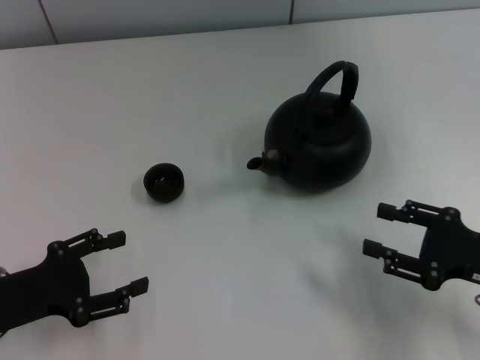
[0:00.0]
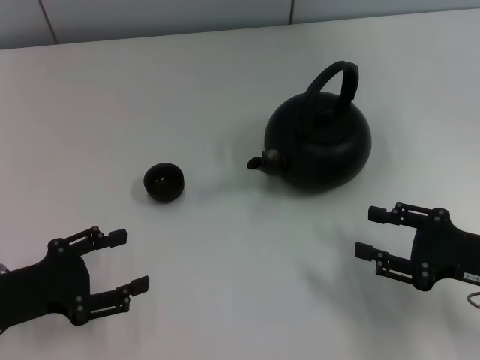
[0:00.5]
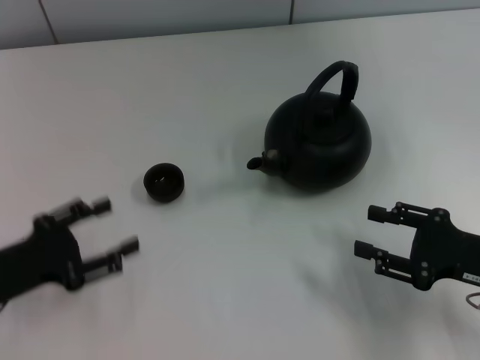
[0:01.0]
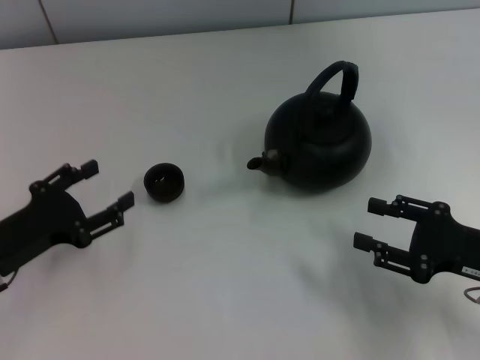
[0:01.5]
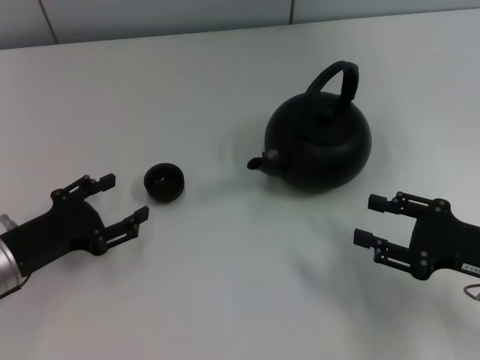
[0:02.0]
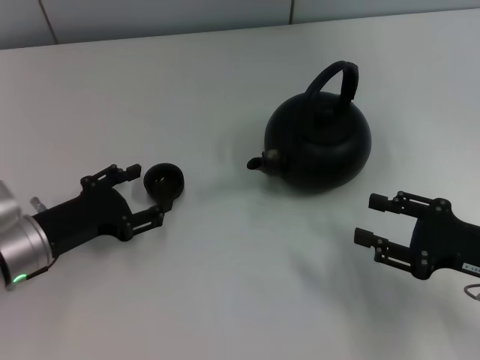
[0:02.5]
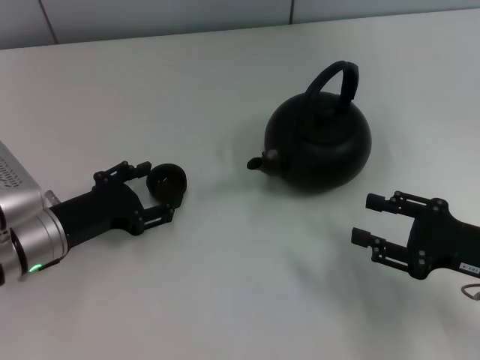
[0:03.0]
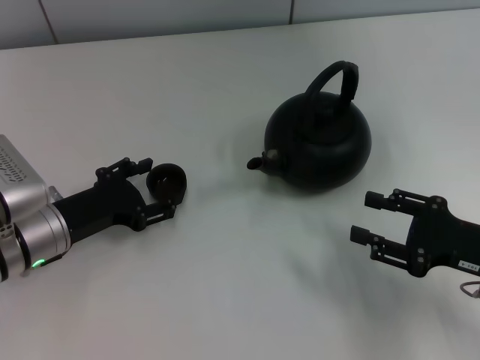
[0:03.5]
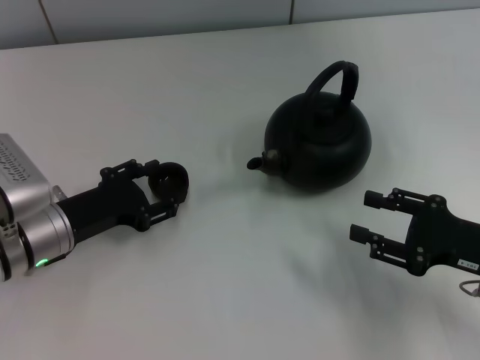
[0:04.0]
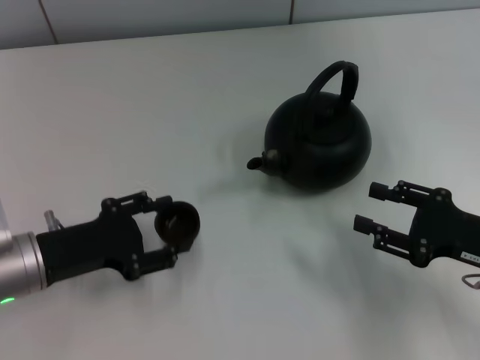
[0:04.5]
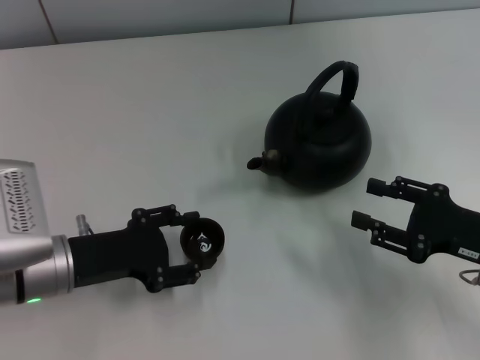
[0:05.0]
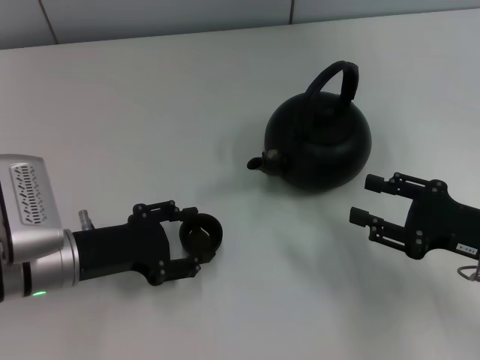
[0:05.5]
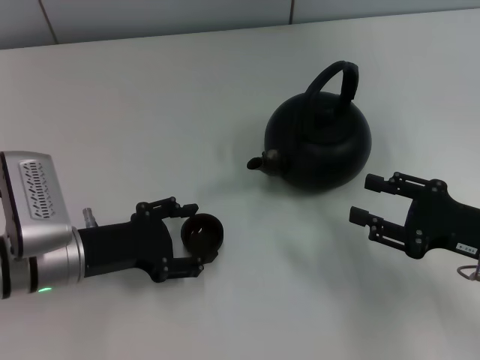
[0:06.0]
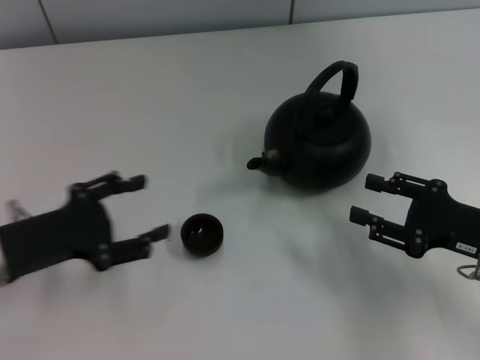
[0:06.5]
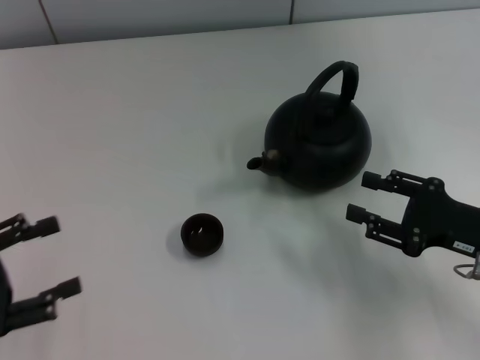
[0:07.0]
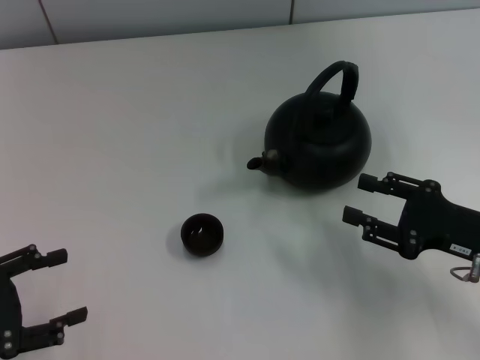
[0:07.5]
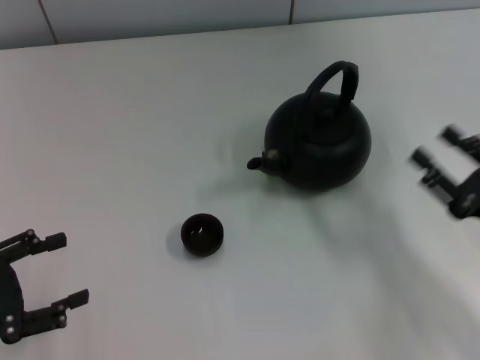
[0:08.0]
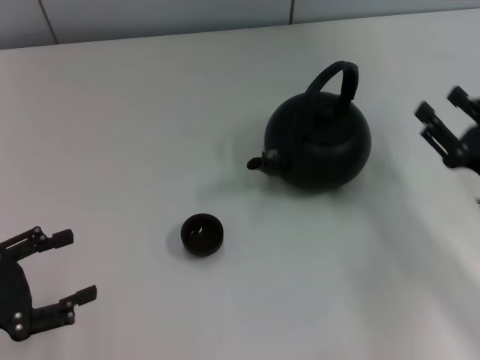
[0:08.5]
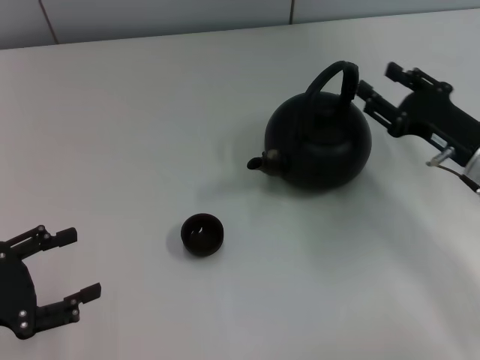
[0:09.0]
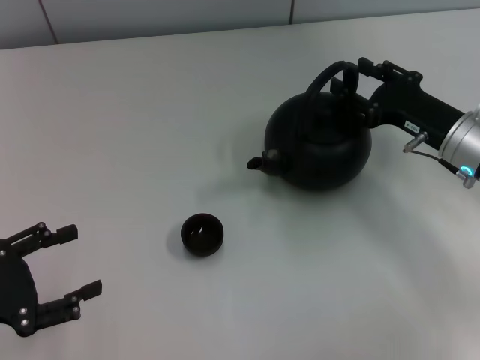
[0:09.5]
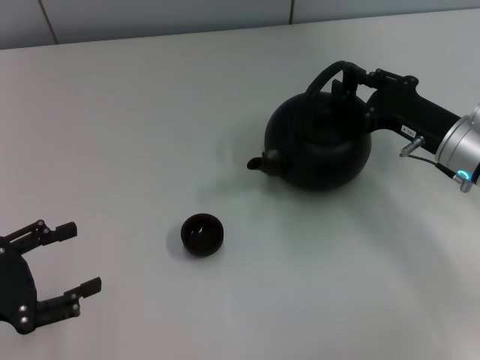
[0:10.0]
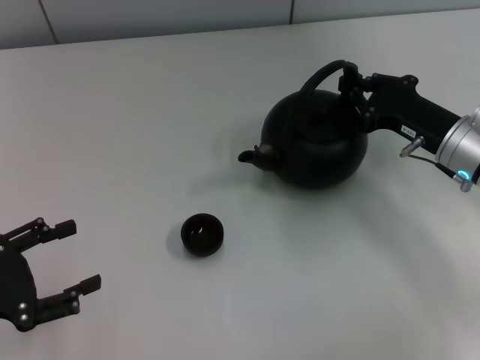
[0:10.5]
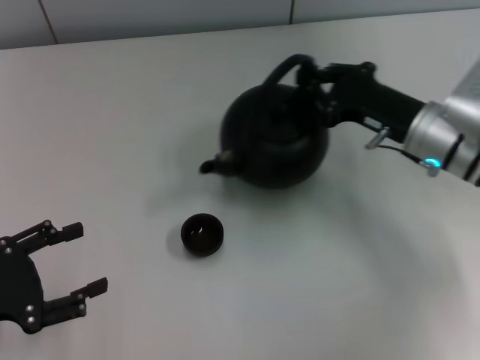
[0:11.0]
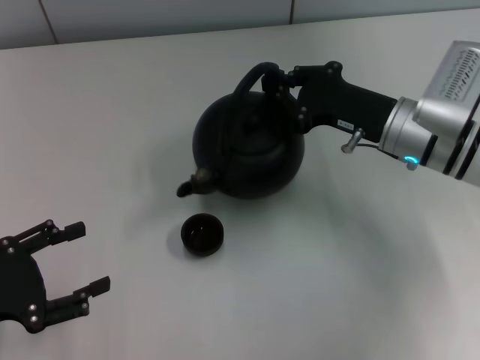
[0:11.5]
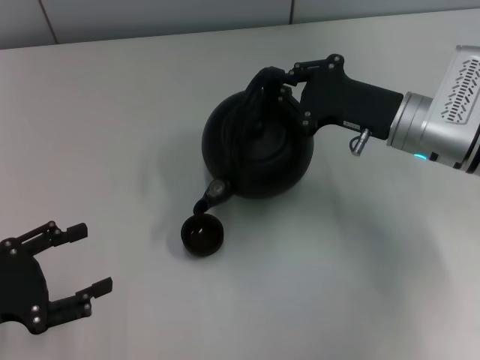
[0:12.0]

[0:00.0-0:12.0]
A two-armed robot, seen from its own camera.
Task of the whole recording: Grasp the handle of the teapot with one hand and pour tea into the teacup.
Step, 0:00.0 to 0:04.0: Pick up the teacup with the left gripper.
Step, 0:04.5 to 0:06.0: Place the teacup in the center of view with the left gripper.
Step, 0:06.5 to 0:10.5: Pick up the teapot with the right gripper.
0:00.0 to 0:02.0: There are only small adjustments of the grippers.
0:02.0 to 0:04.0: The left gripper moves about 5 cm.
0:06.0 to 0:08.0: The left gripper heads to the left and backward, covering approximately 15 cm.
0:08.0 to 0:10.0: The right gripper goes approximately 15 cm forward.
0:10.0 to 0:12.0: The right gripper heads to the left, covering approximately 5 cm, and closes its fingers.

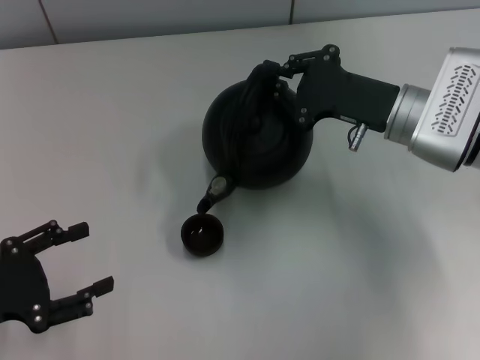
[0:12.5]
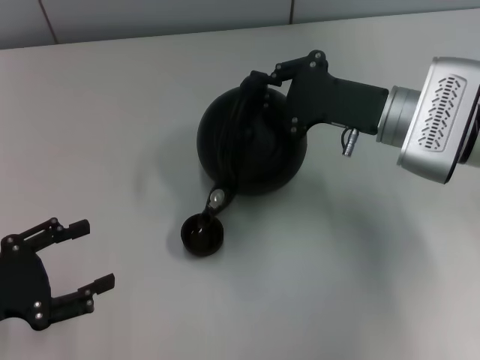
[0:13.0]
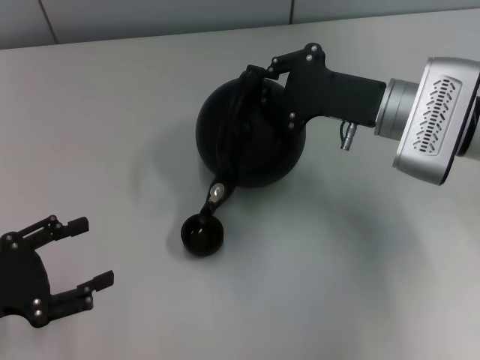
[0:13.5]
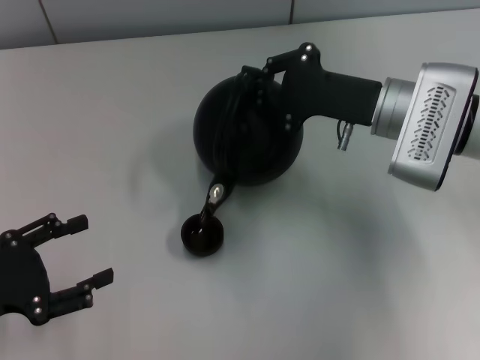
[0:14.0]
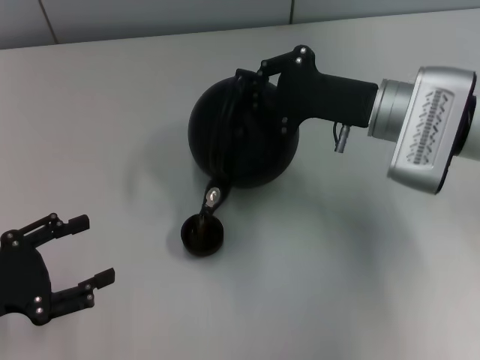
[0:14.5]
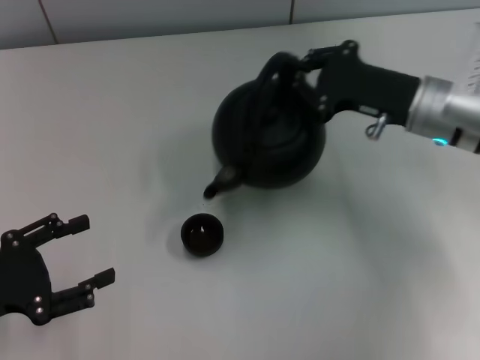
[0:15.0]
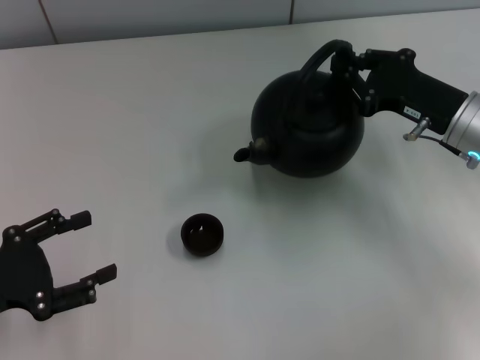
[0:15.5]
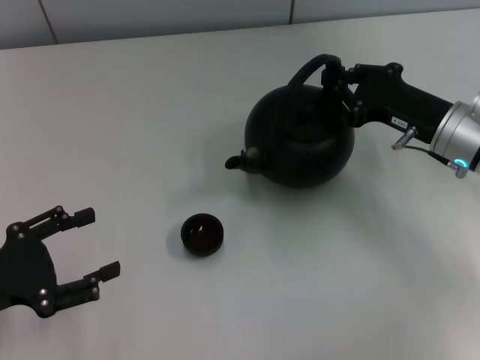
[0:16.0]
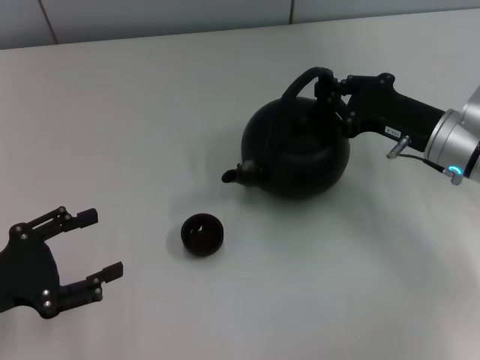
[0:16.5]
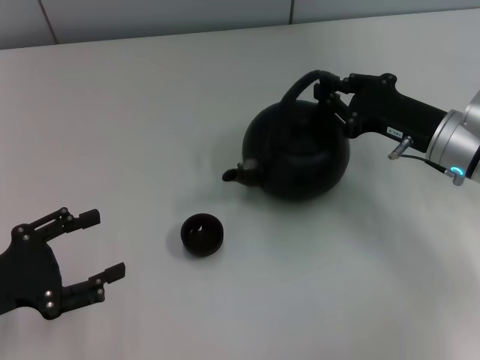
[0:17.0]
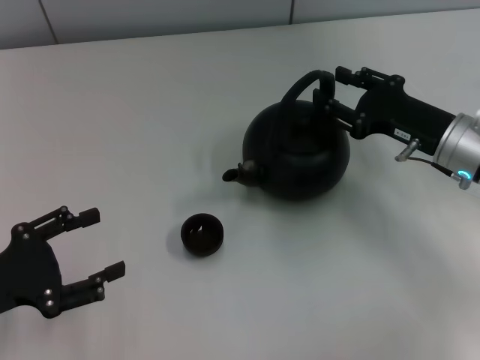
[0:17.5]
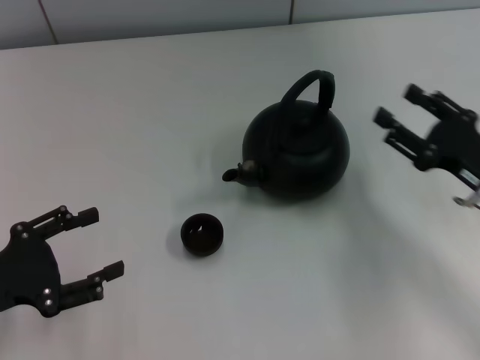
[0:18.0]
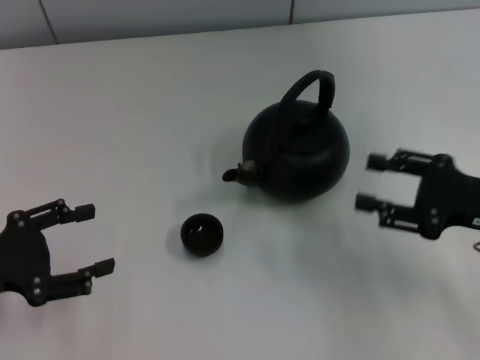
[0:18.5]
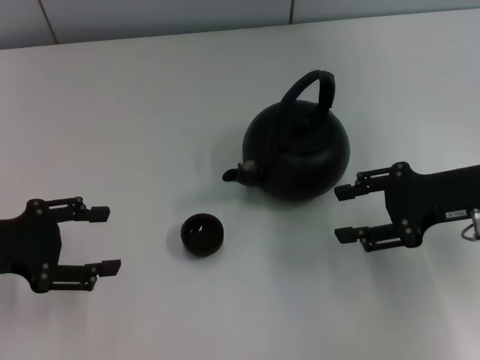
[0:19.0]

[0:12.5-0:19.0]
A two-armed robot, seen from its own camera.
Task of the whole recording: Grasp the handle of the teapot with one hand and pour tea into the teacup.
Step, 0:15.0 to 0:17.5: Put down the teapot with the right gripper.
0:12.5 to 0:14.5: There are only small adjustments of the grippers.
0:14.5 to 0:17.0: The right gripper goes about 5 cm to the right.
0:17.0 to 0:19.0: The right gripper opens up. The left gripper is displaced forward by roughly 5 cm.

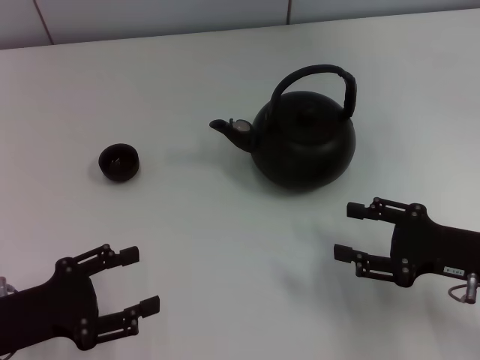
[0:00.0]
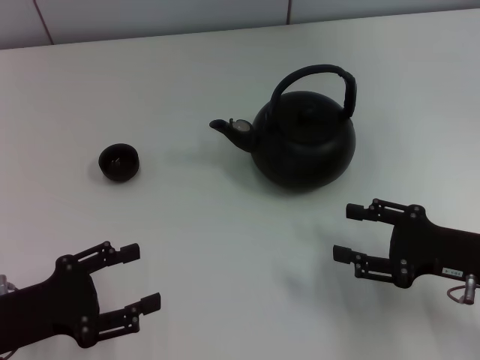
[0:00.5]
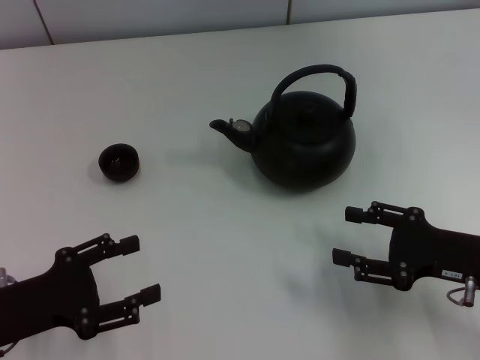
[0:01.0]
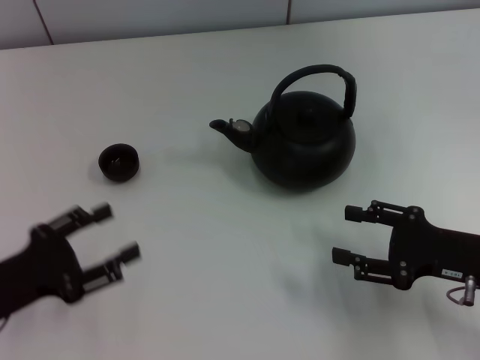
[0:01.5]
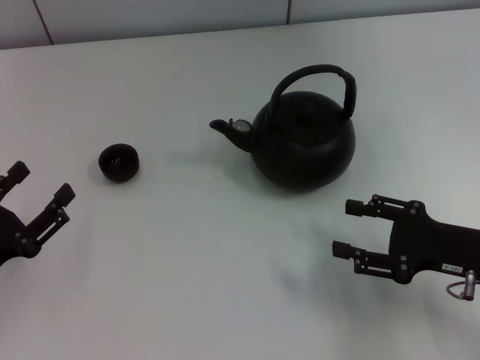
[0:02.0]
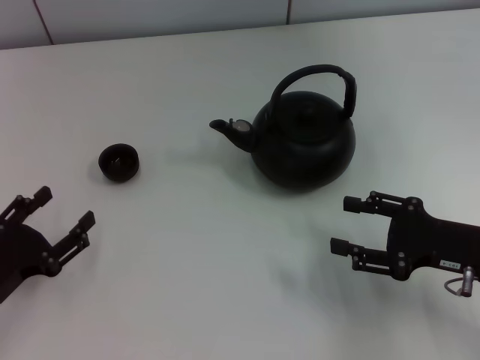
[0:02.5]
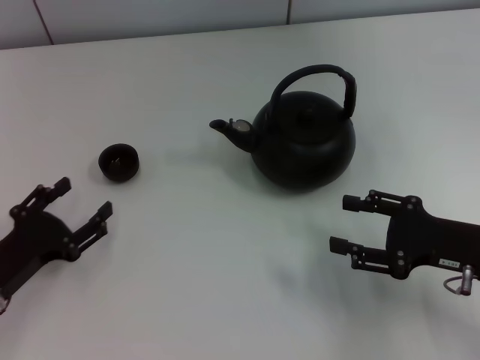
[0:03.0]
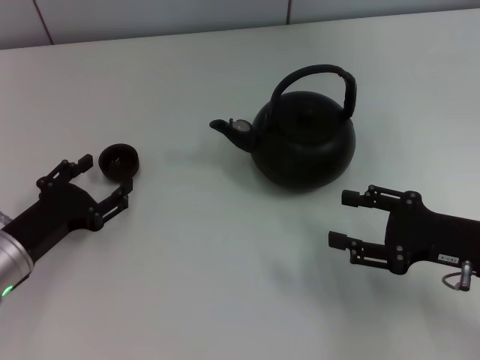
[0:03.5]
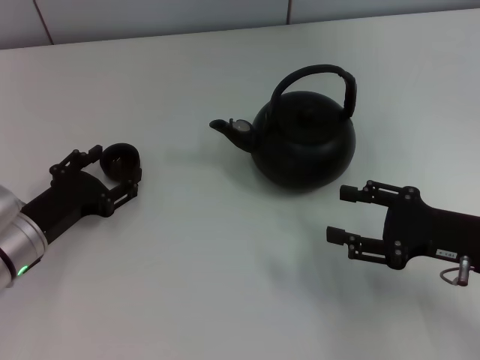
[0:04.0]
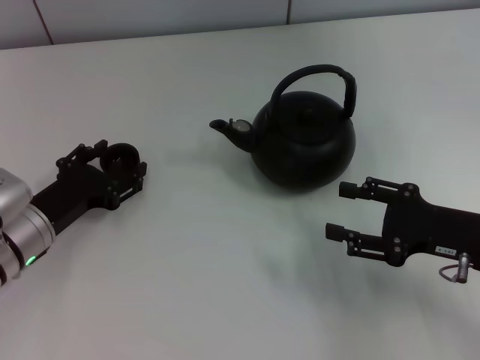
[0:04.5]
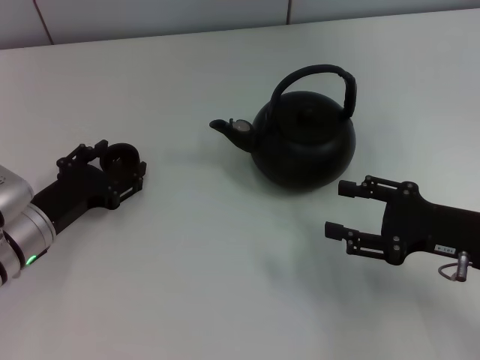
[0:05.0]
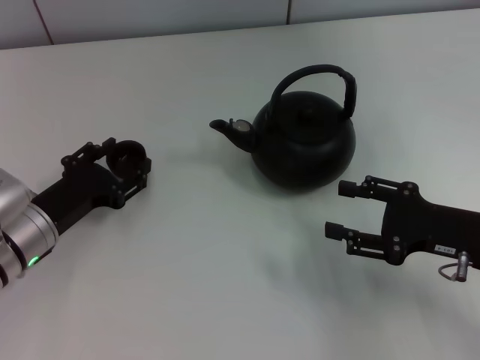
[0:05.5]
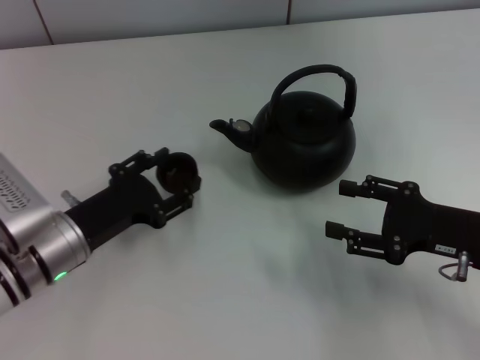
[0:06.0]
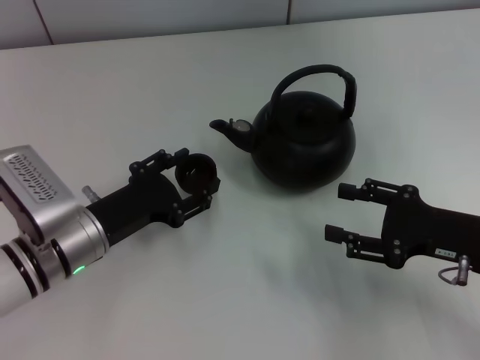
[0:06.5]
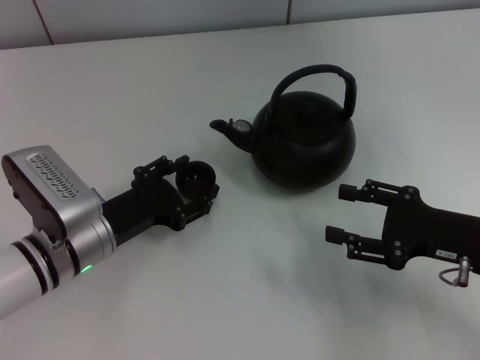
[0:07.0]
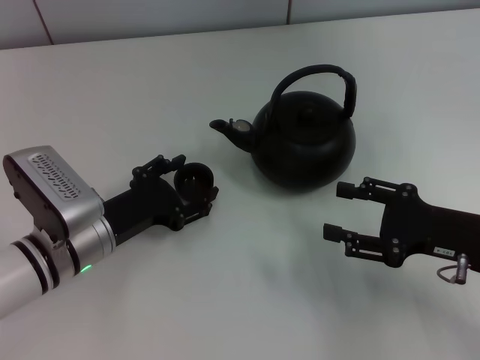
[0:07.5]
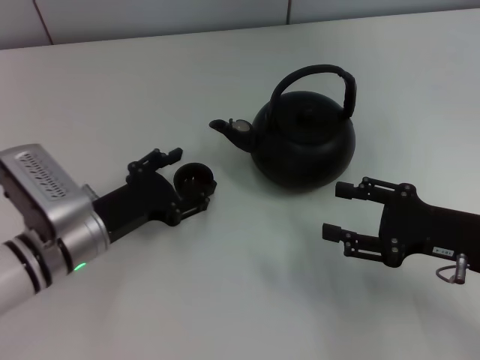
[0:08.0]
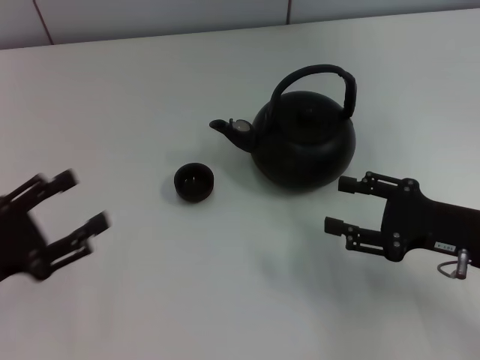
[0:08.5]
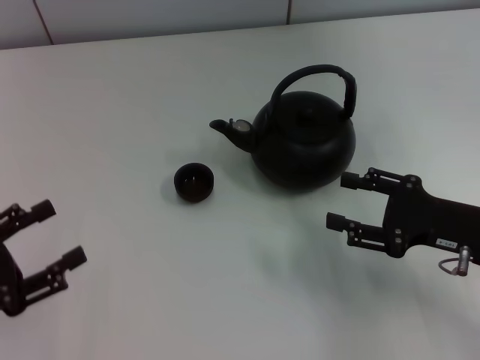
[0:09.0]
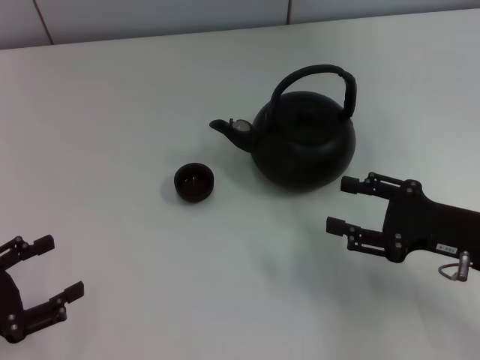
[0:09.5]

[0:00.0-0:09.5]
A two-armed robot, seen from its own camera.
Task of the whole recording: Grasp the handle of the teapot with one hand and pour tea into the teacup.
Step, 0:00.0 to 0:05.5: Pick up the teacup with the left gripper.
Step, 0:06.0 to 0:08.0: Place the teacup in the center of view with the left gripper.
0:02.0 to 0:04.0: The left gripper shifts some 10 cm forward and to the right.
0:04.0 to 0:05.5: Neither gripper changes place.
0:05.5 to 0:07.5: The left gripper shifts about 5 cm to the right.
0:07.5 to 0:09.5: The left gripper is displaced to the left and backward by some 20 cm.
